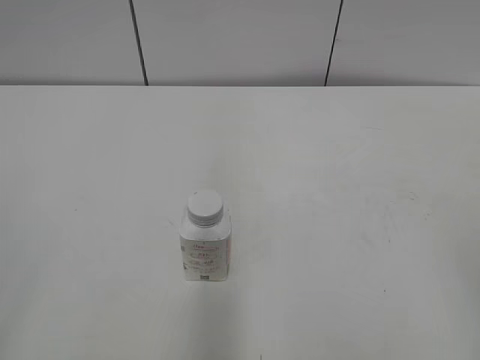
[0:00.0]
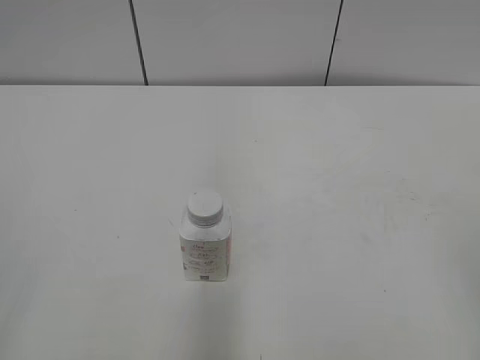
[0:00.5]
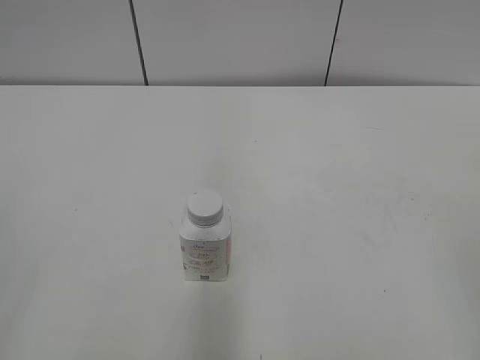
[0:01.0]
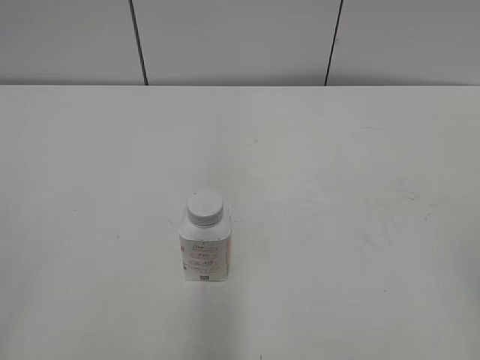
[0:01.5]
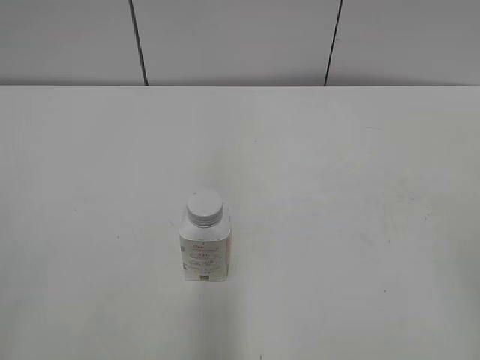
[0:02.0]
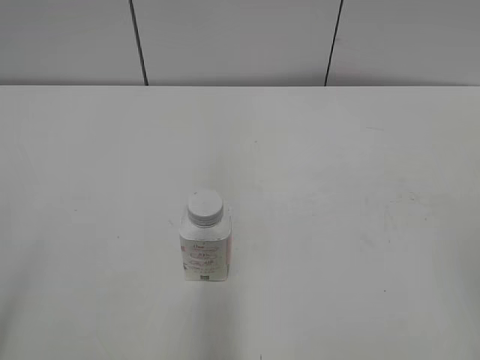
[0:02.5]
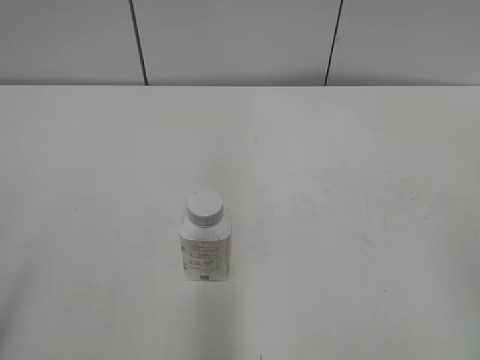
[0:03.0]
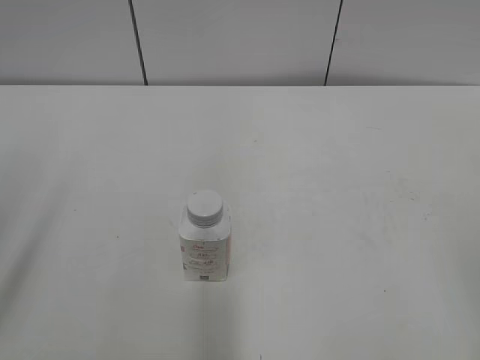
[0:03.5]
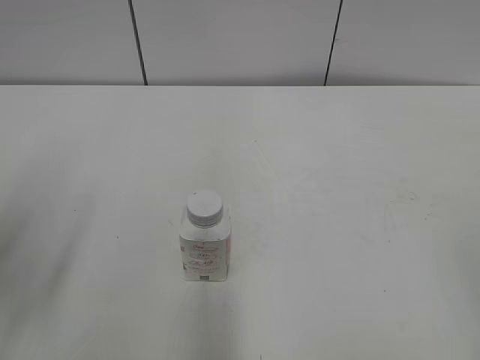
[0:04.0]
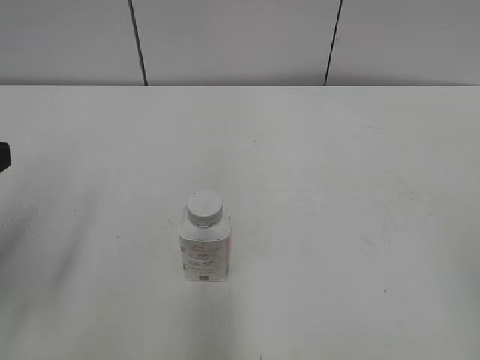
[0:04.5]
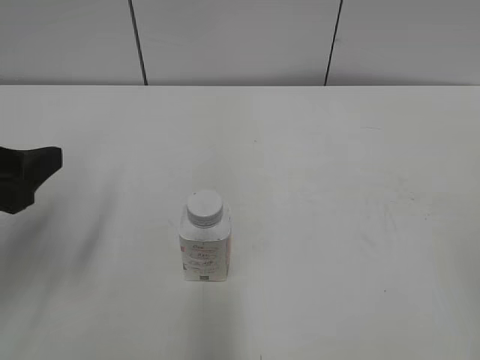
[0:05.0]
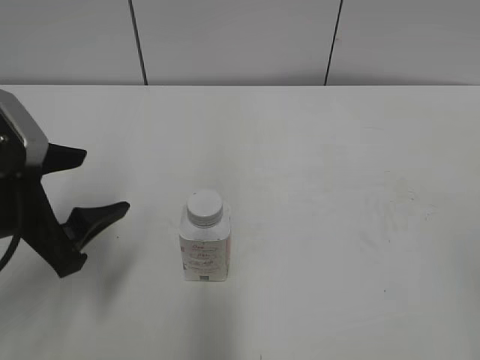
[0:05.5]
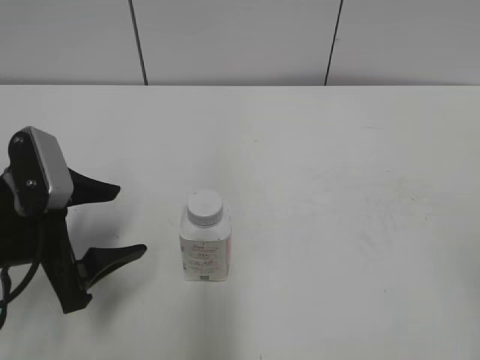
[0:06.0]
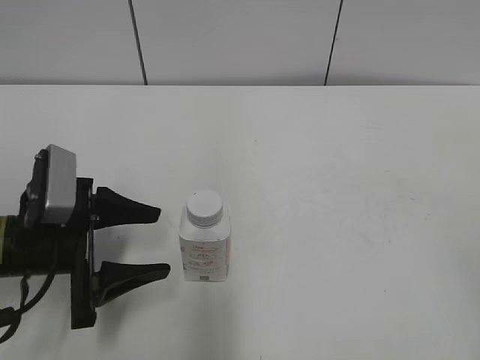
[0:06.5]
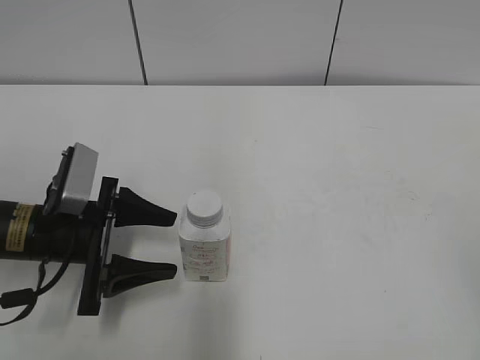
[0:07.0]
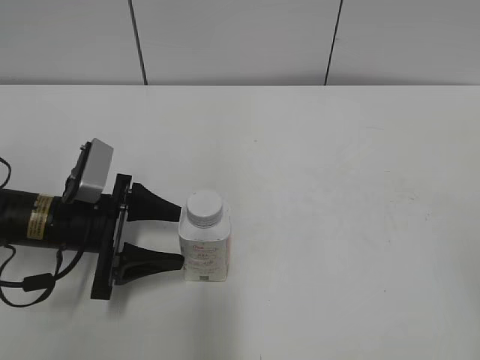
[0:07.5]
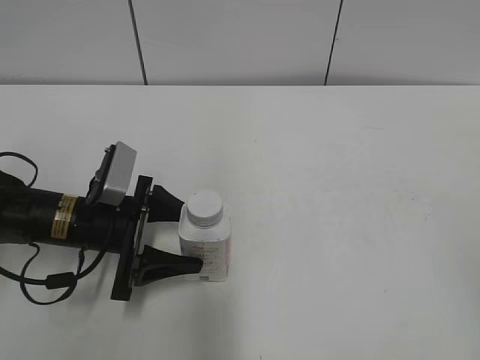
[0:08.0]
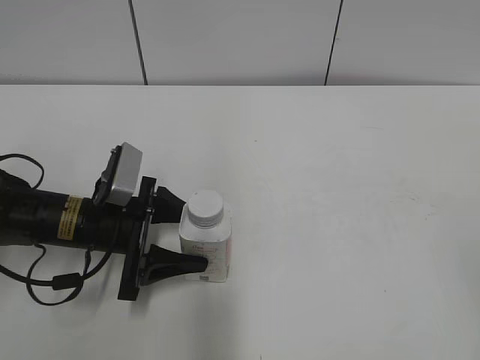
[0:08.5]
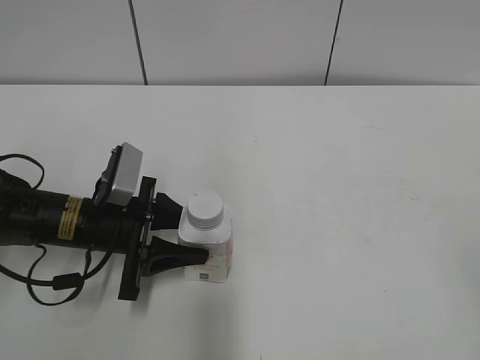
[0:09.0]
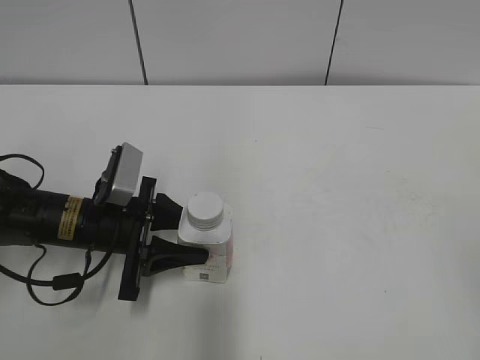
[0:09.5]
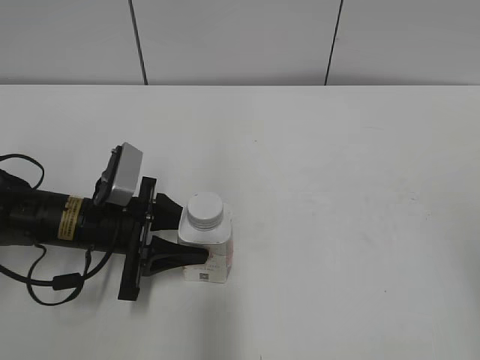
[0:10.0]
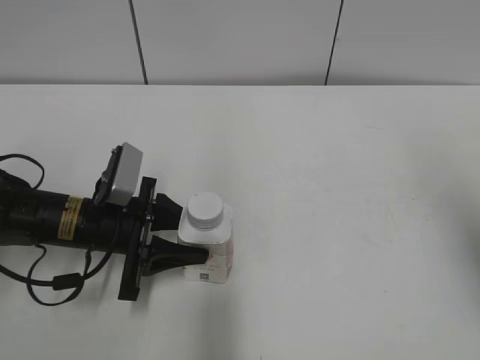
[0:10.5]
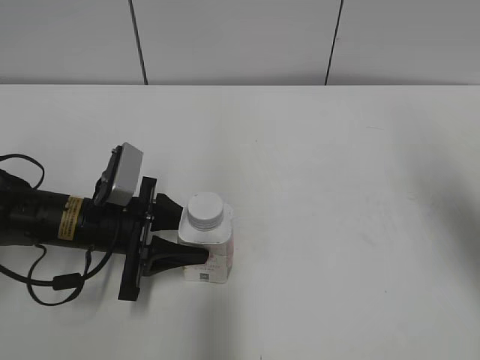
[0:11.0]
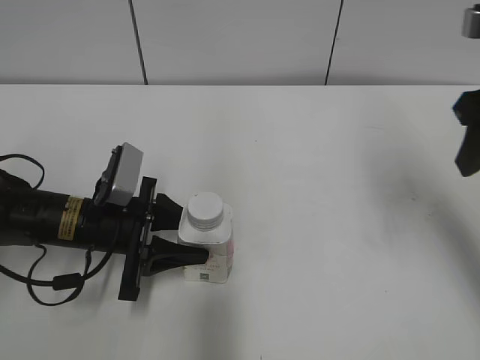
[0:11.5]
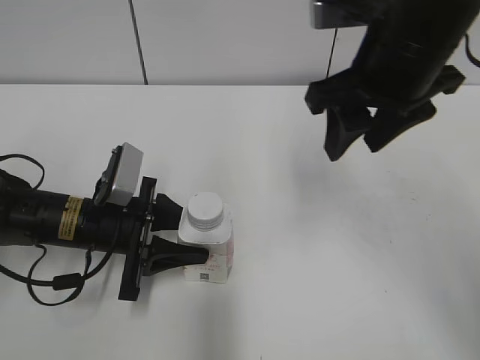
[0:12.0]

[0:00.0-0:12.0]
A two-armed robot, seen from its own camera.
Step, 0:00.0 to 0:09.5: Grab the Yili Changqing with the left hand.
0:02.0 to 0:04.0: The left gripper travels forward by approximately 15 cm, and opens.
0:04.0 to 0:06.0: The left gripper shifts roughly 15 cm downward, forward and to the right.
0:06.0 to 0:08.0: The left gripper moves downward and forward, approximately 10 cm.
0:08.0 to 0:10.0: The left gripper closes.
0:10.0 to 0:12.0: The right gripper shifts roughly 30 cm forward and to the left, and closes up.

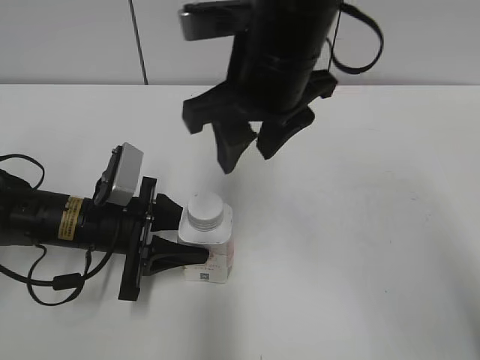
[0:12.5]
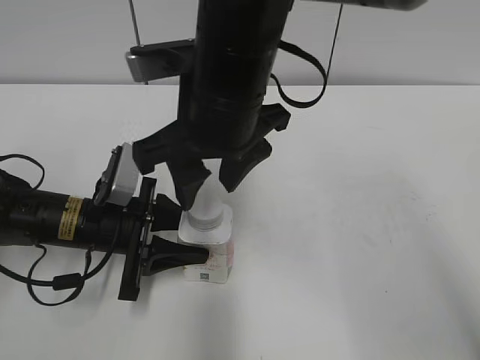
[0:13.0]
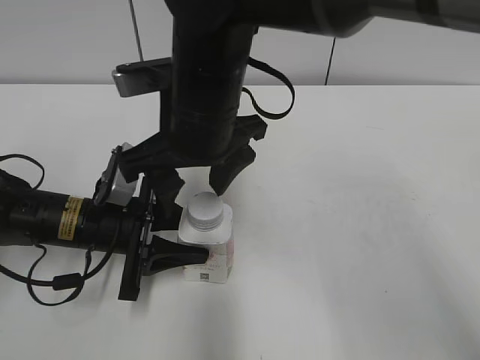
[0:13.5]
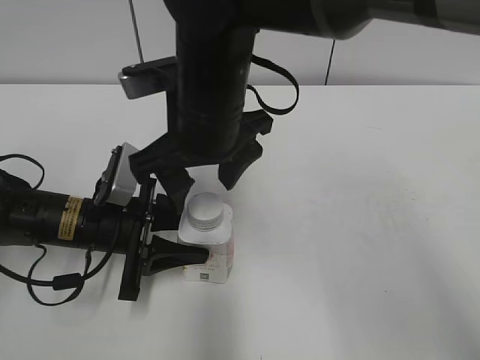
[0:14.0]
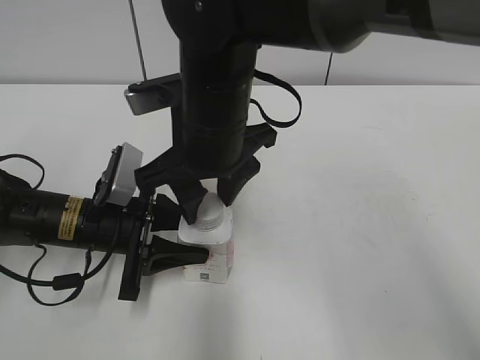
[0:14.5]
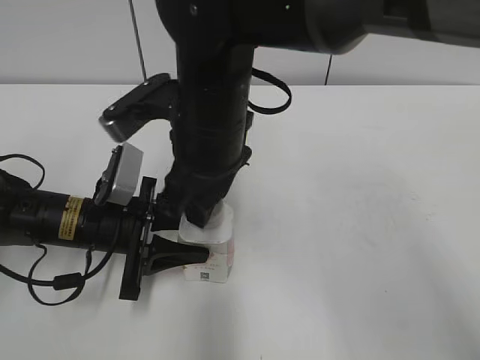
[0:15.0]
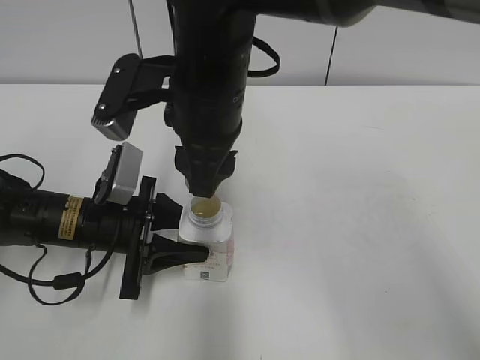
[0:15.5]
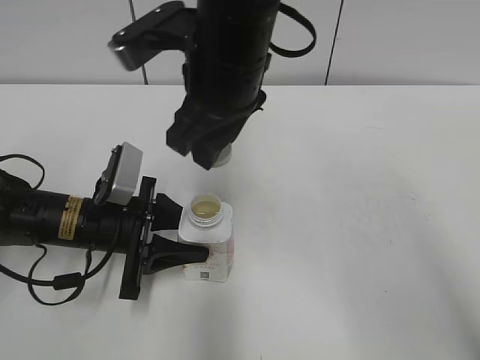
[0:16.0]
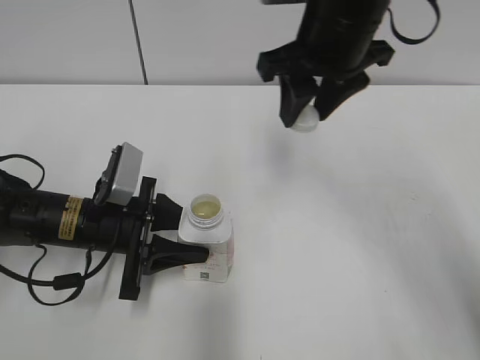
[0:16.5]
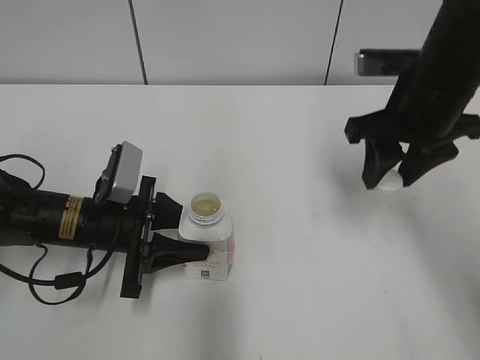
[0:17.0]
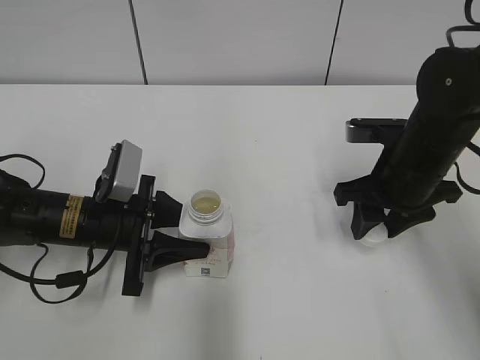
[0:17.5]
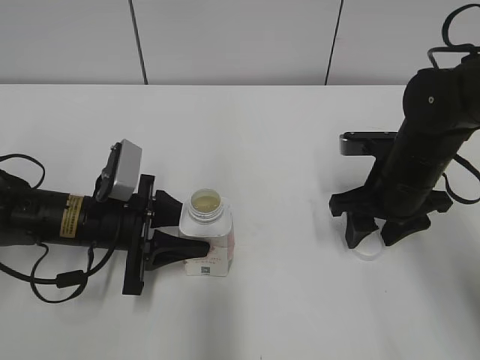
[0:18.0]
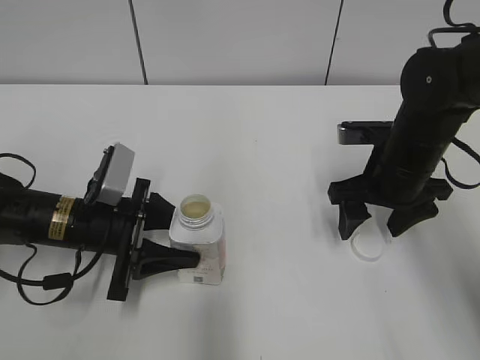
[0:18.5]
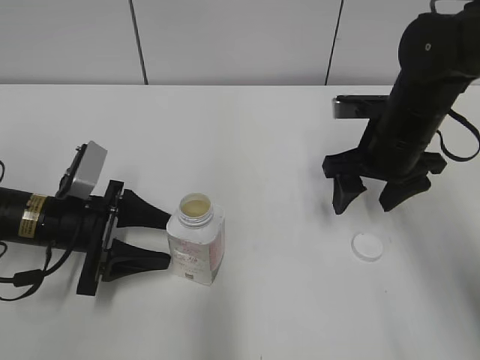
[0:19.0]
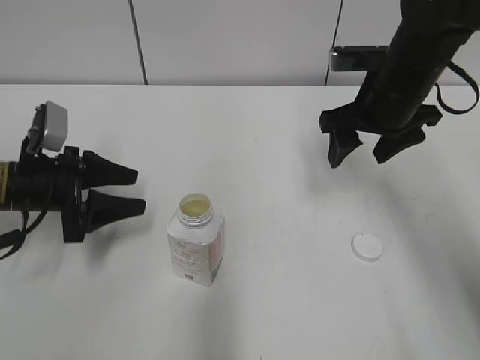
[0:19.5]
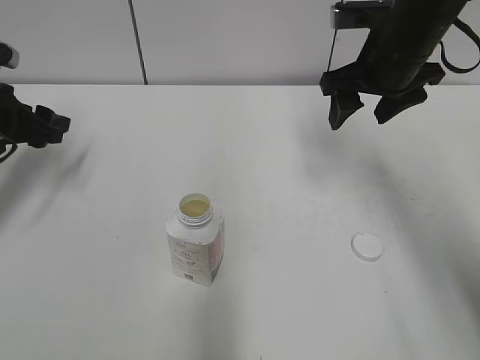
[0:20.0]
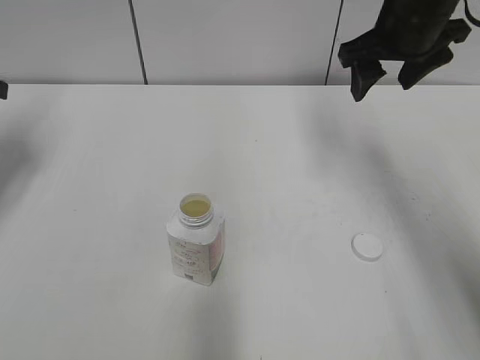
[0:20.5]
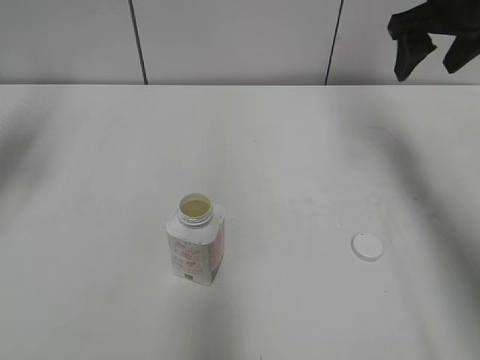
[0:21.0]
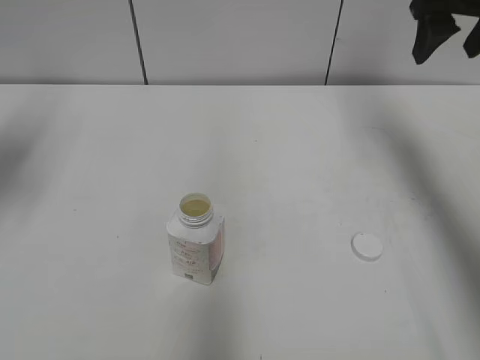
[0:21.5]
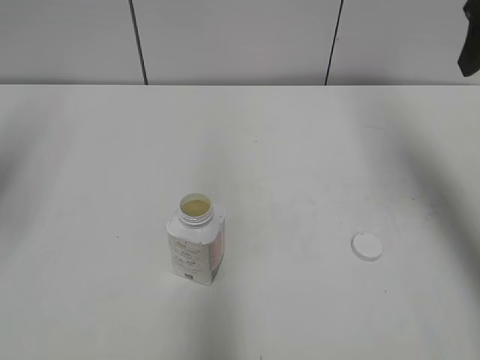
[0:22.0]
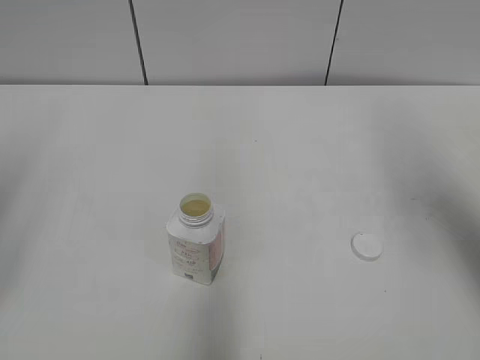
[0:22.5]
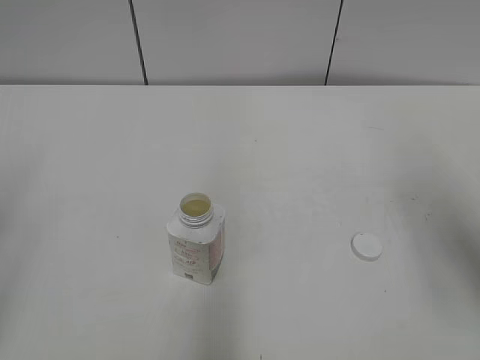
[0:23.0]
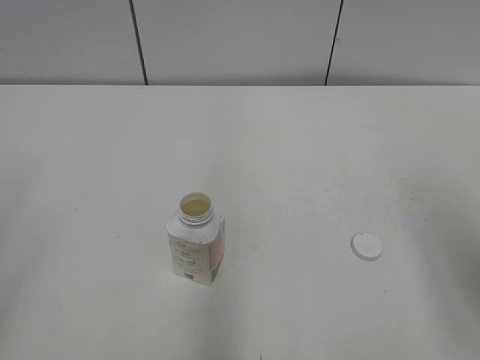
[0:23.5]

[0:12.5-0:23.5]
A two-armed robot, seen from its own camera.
Step, 0:15.5 to 0:18.0: Place the bottle cap on the right.
0:12.5 to 0:14.5: The right gripper travels downward and to the left by approximately 10 cm, and opens and closes again.
0:14.5 to 0:16.0: The right gripper shifts by roughly 5 cm, and closes its fingers.
0:16.0 to 0:18.0: The right gripper shifts some 25 cm to the right and downward.
0:18.0 to 0:20.0: The right gripper is displaced upward and forward by some 15 cm, and opens its fingers; the left gripper travels to the left, upward and forward by roughly 15 cm, and opens.
0:20.0 to 0:21.5: The left gripper heads upward, covering roughly 15 cm. Meanwhile the right gripper moves to the right and upward, roughly 10 cm.
0:21.5 to 0:23.5: The two grippers go approximately 25 cm backward.

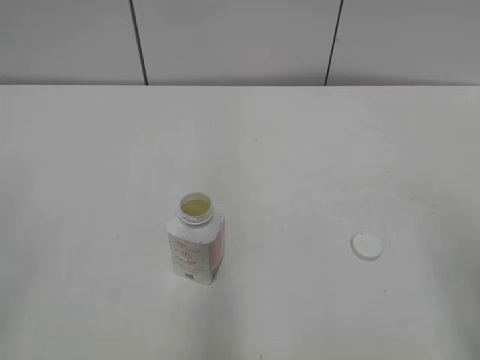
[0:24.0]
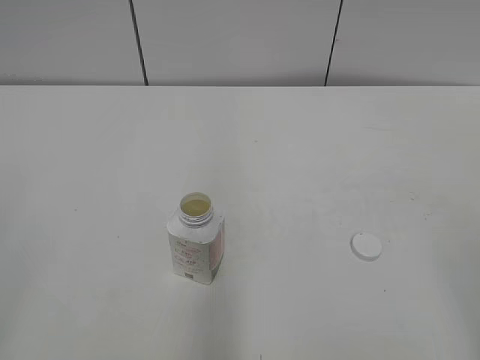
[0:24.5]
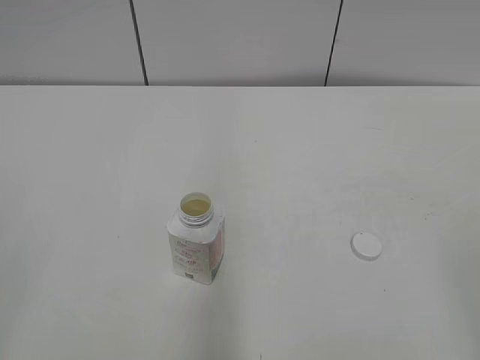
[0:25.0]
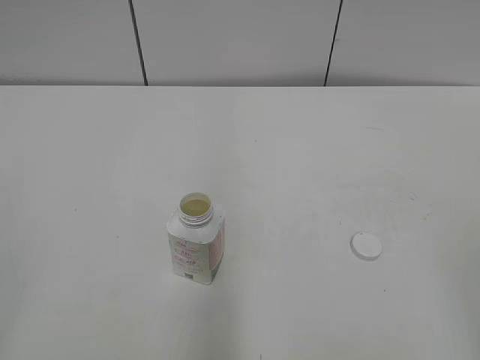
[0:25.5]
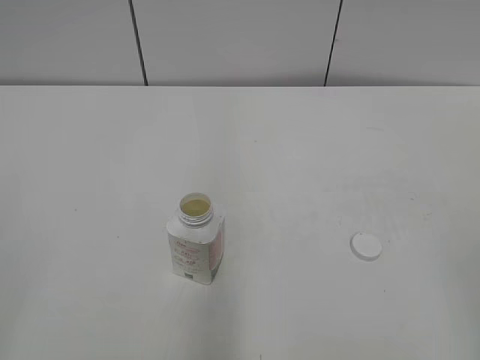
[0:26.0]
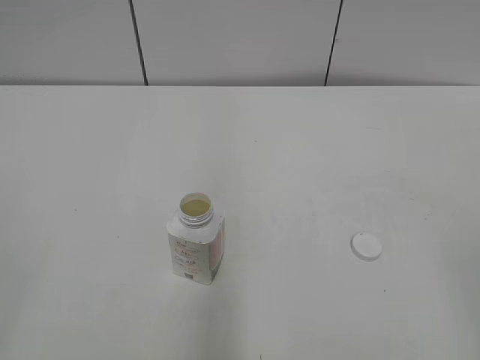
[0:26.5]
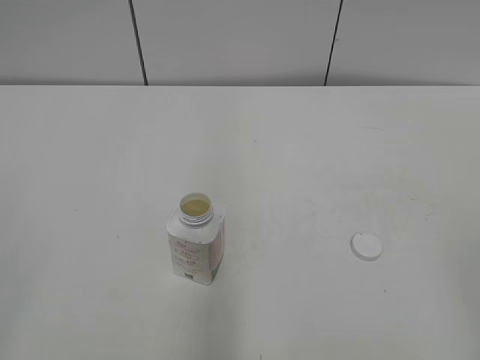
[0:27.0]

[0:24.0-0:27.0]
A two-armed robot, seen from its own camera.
0:25.5 to 0:27.0: Both grippers stay put.
